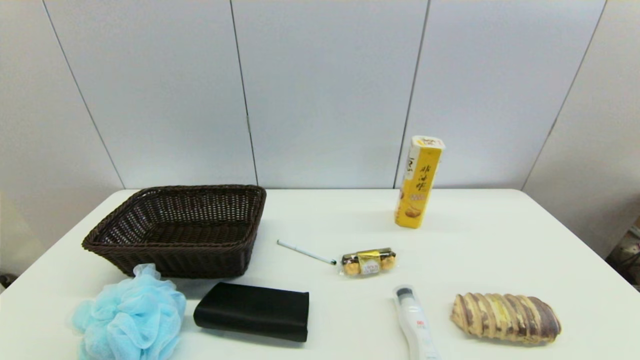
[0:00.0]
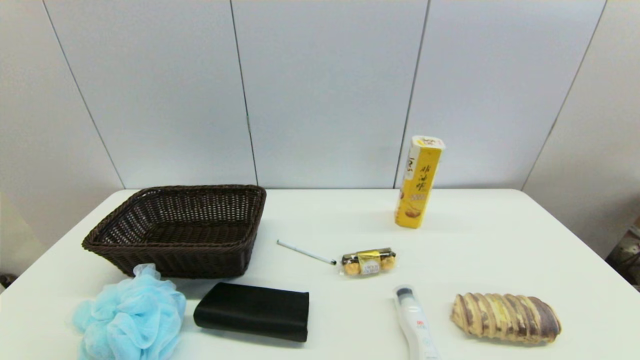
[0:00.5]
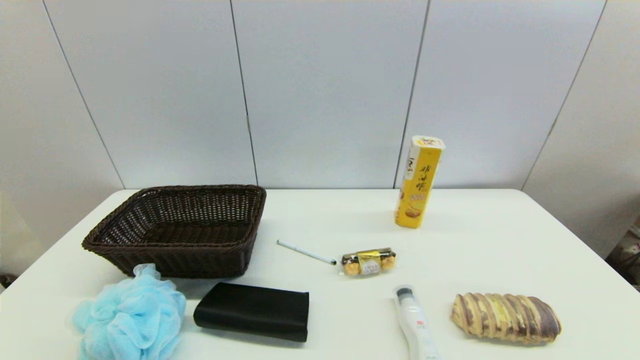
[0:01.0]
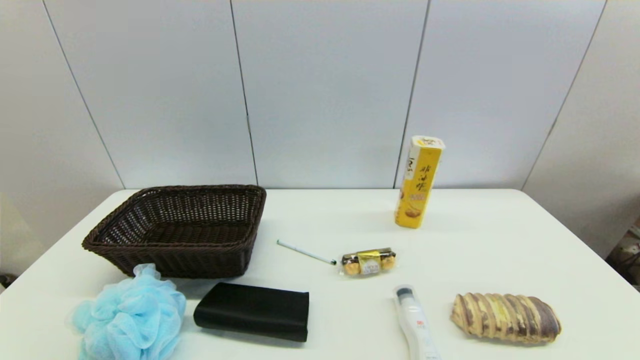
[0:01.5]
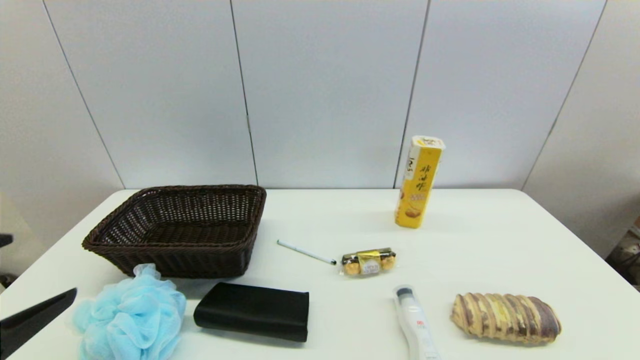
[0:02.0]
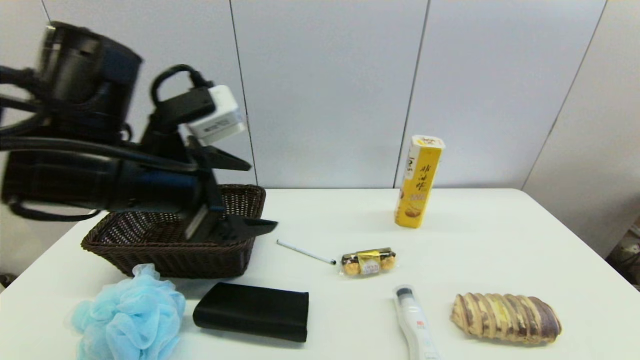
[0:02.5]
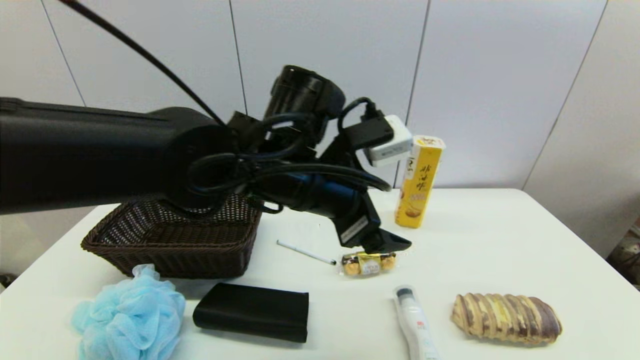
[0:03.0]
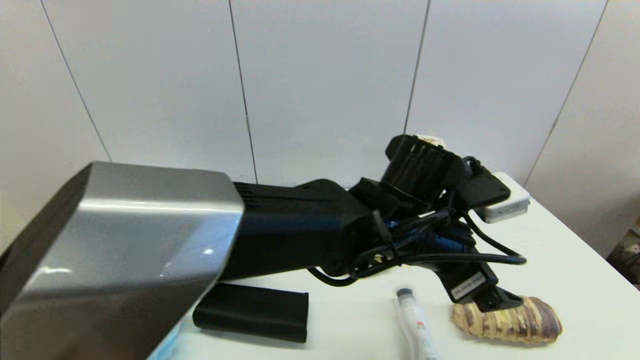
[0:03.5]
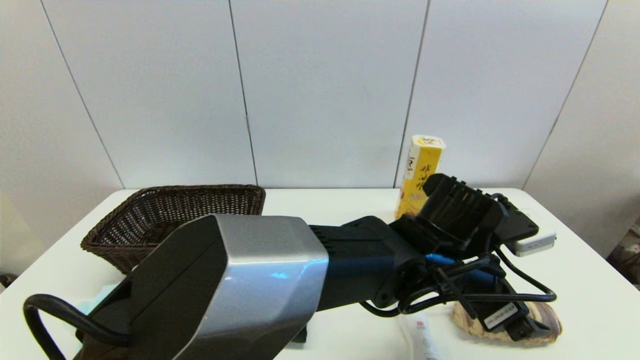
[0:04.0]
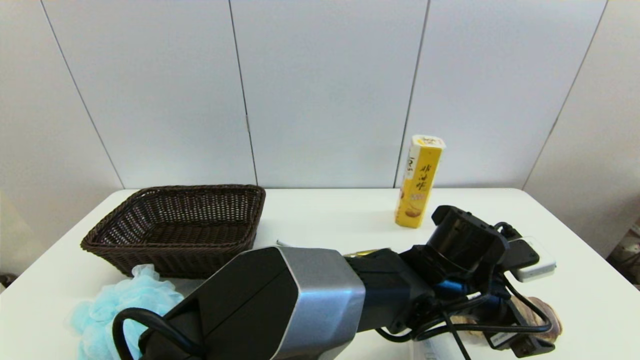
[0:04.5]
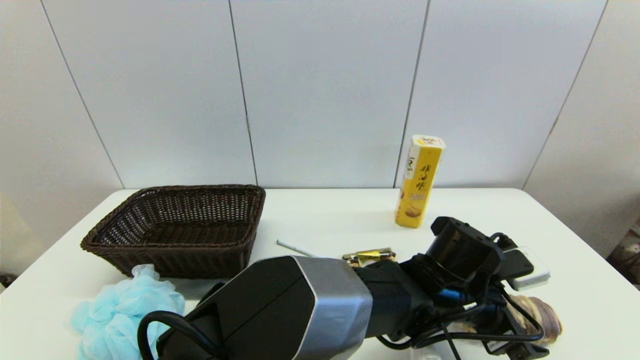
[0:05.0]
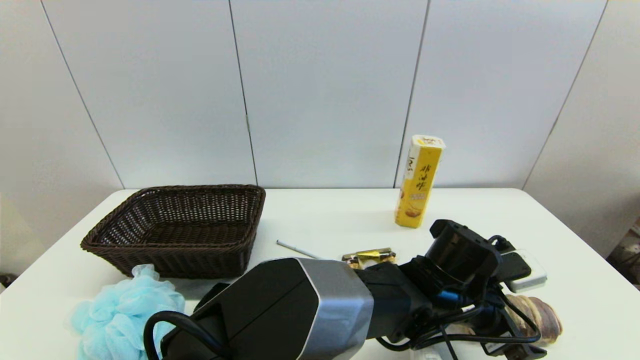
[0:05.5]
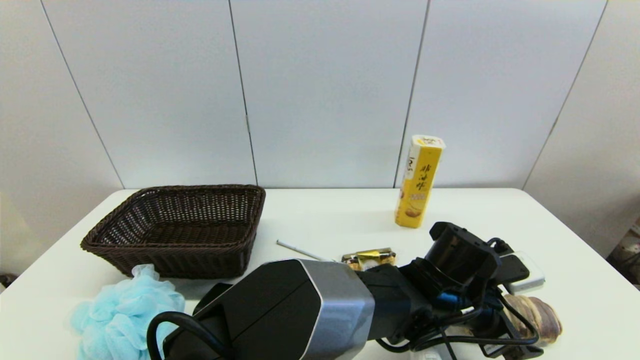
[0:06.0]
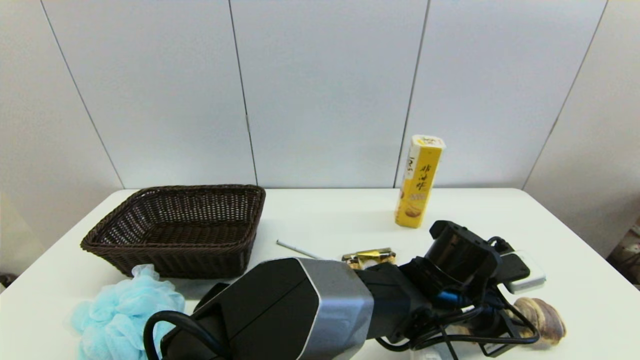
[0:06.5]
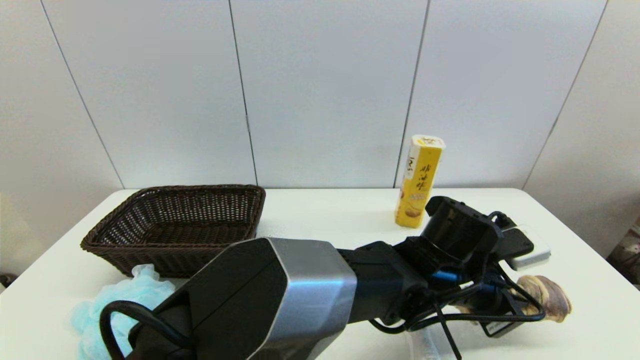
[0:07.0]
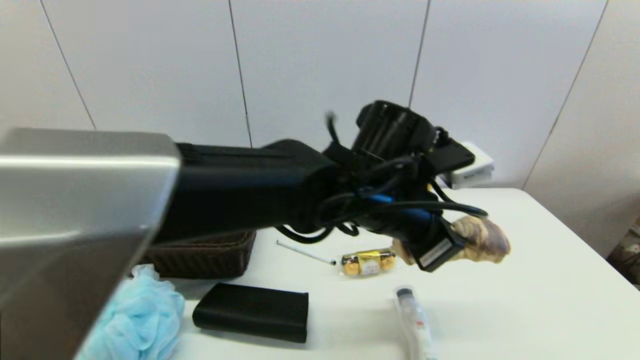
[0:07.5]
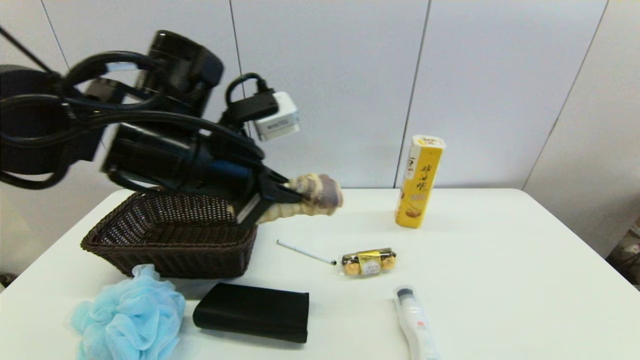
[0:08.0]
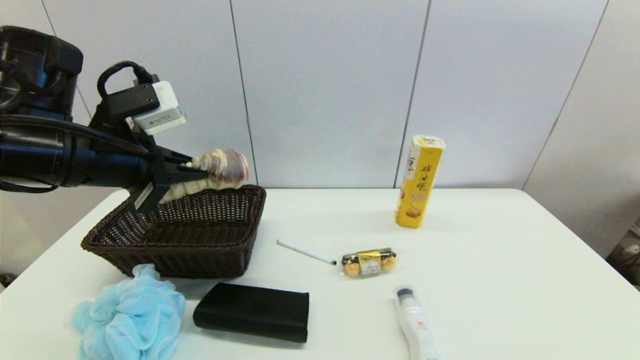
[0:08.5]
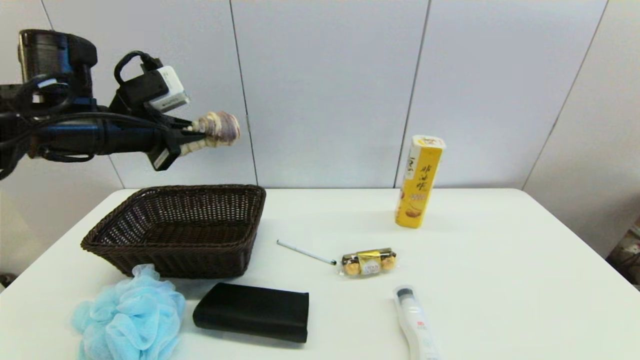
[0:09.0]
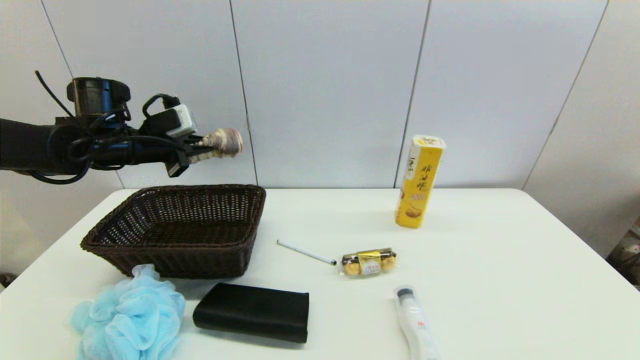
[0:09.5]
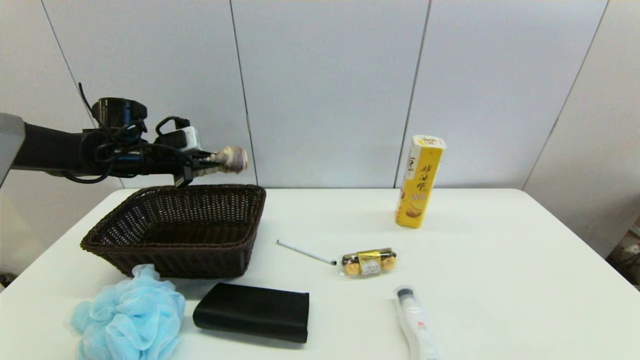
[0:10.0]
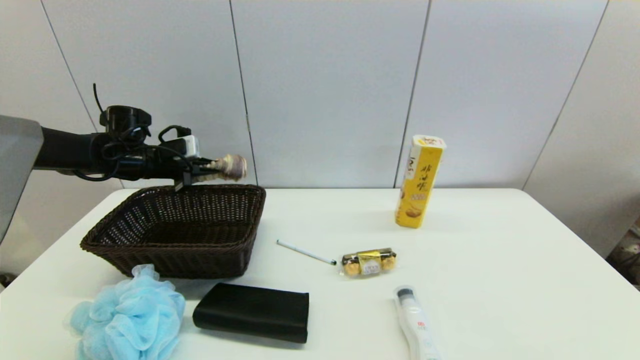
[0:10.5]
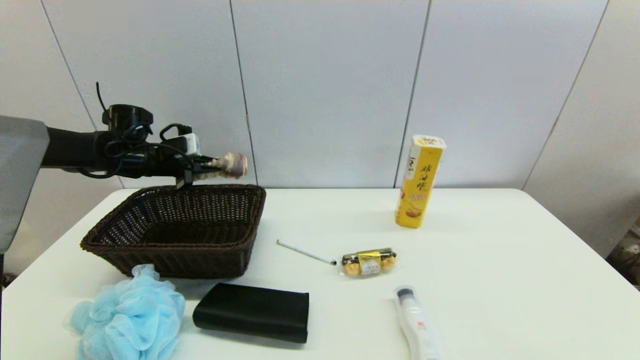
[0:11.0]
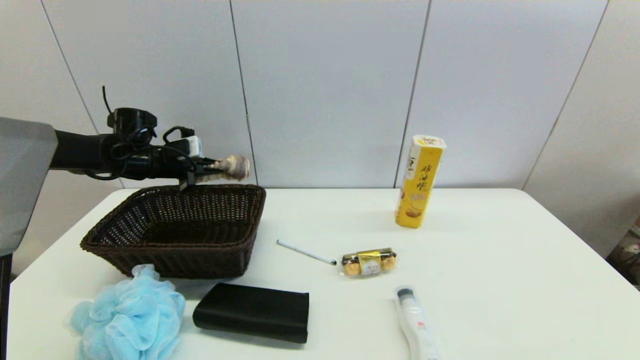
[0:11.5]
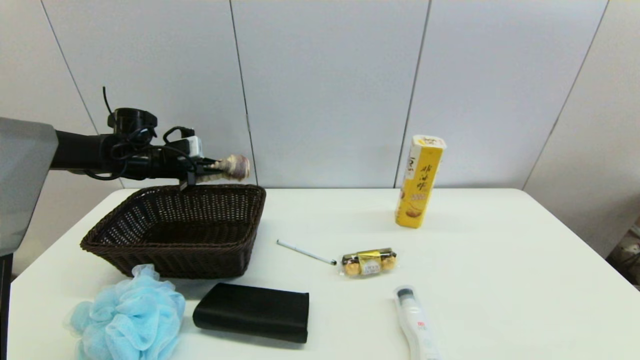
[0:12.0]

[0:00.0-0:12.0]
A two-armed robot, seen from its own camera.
Step, 0:02.0 to 0:06.0: Grasp the long bread with left gripper.
0:00.0 to 0:02.0: The left gripper moves upward and forward, roughly 20 cm.
0:02.0 to 0:04.0: The left gripper is displaced to the right and forward by some 50 cm.
0:04.0 to 0:06.0: The left gripper travels downward by approximately 5 cm.
0:06.0 to 0:08.0: The left gripper travels to the left and upward by roughly 35 cm, and closes up.
0:08.0 to 0:10.0: The left gripper heads forward, to the left and downward, covering about 25 cm.
0:10.0 to 0:12.0: The grippers stay close to where they were, moving slightly.

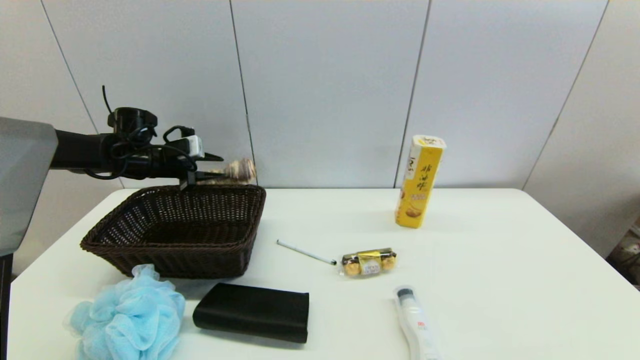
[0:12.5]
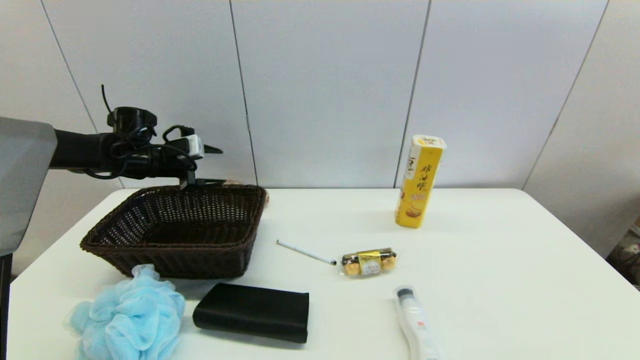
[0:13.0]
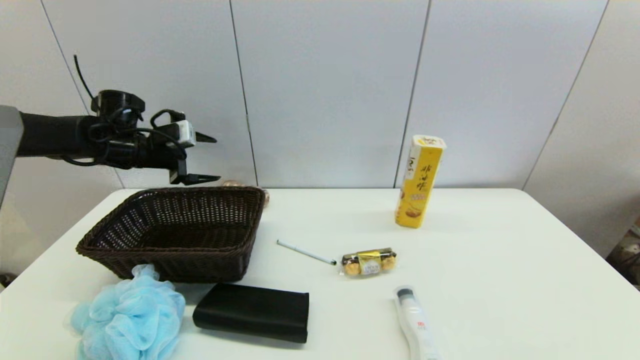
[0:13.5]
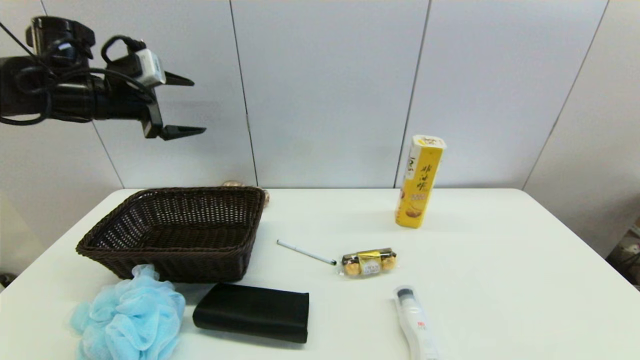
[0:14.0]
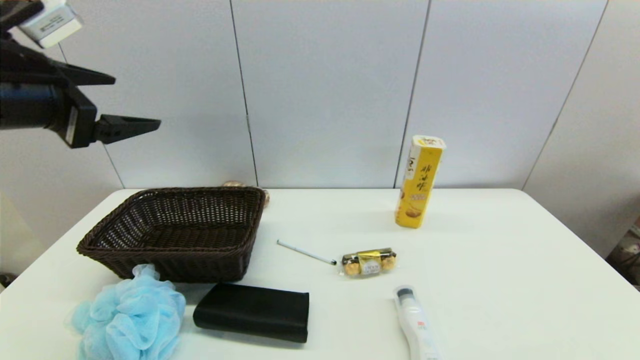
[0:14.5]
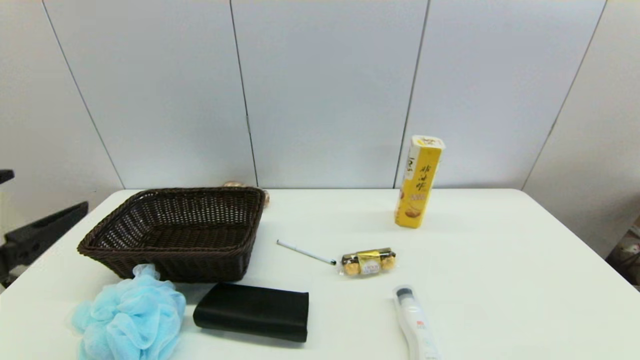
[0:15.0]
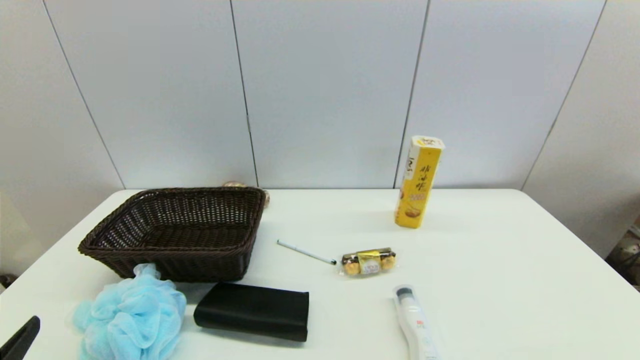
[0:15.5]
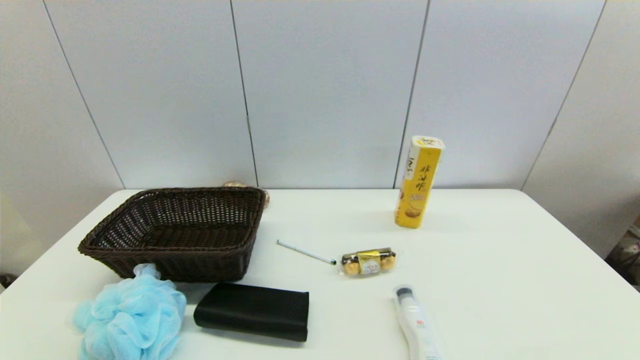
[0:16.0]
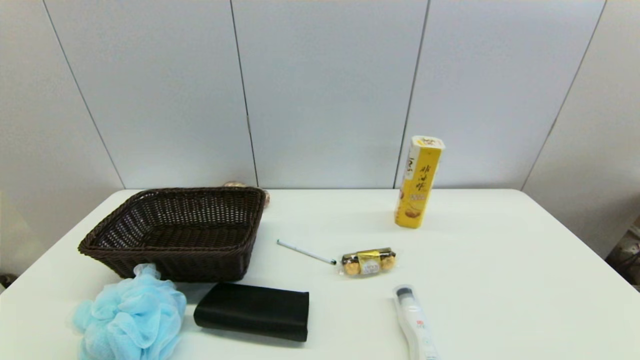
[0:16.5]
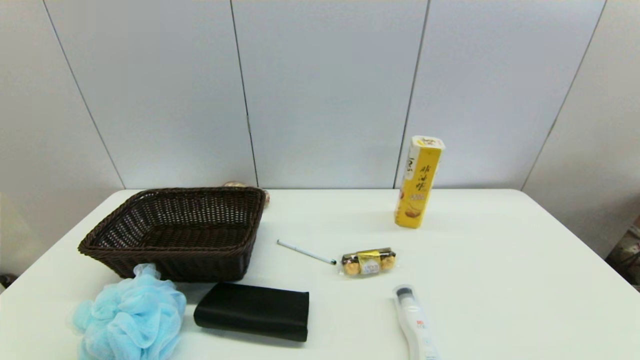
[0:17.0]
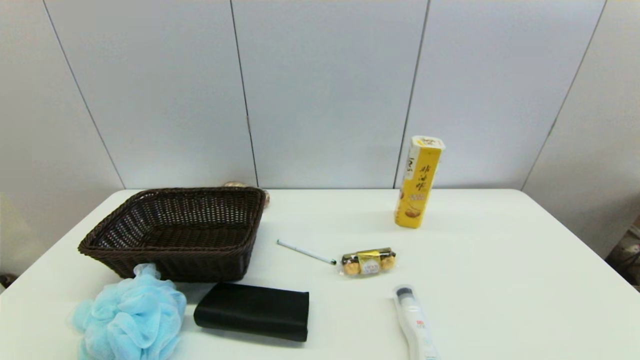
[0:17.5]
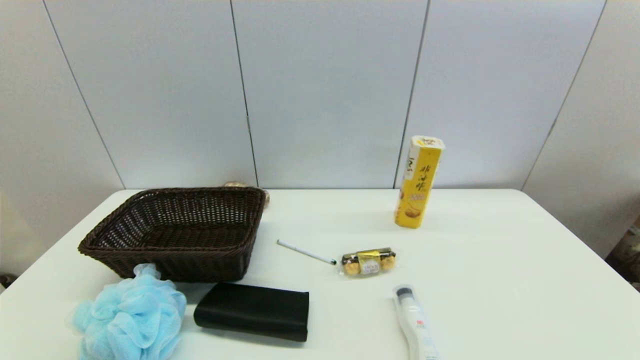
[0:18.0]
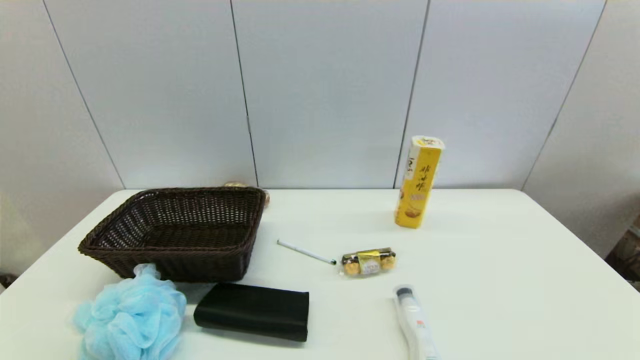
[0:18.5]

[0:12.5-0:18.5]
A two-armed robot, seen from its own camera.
0:12.5 to 0:14.5: The left gripper travels backward and upward by approximately 30 cm, and opens its fingers.
0:14.5 to 0:16.5: The left gripper moves downward and backward, some 35 cm.
